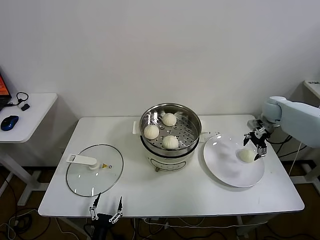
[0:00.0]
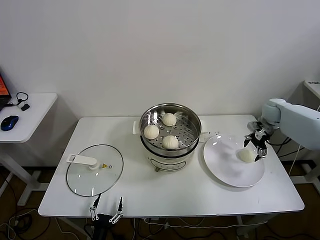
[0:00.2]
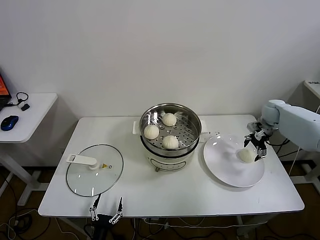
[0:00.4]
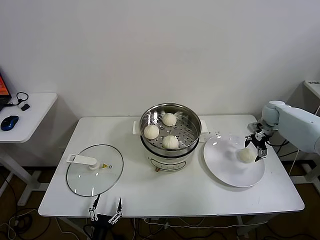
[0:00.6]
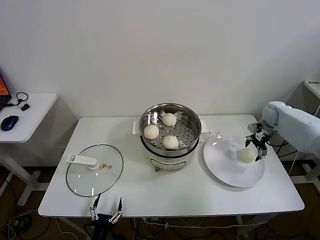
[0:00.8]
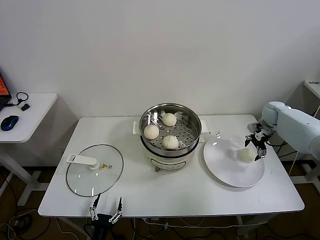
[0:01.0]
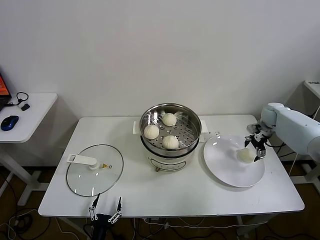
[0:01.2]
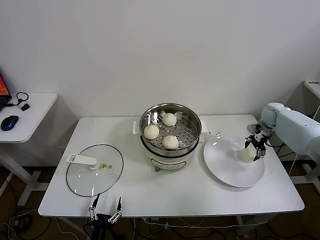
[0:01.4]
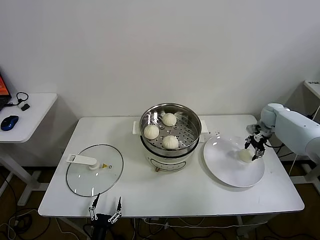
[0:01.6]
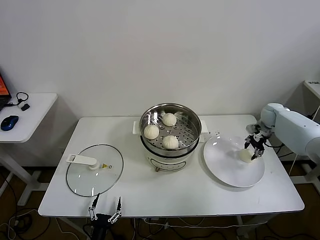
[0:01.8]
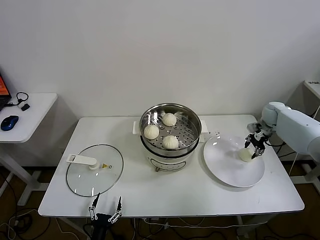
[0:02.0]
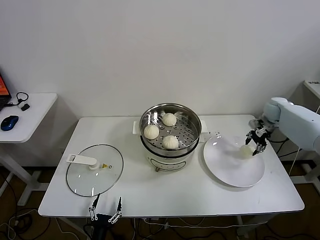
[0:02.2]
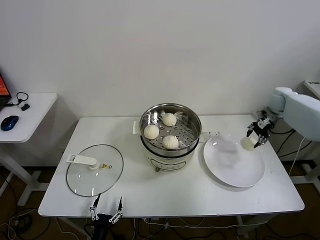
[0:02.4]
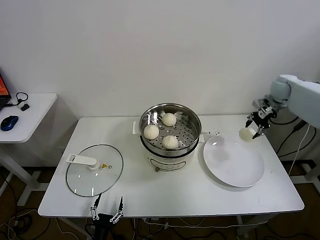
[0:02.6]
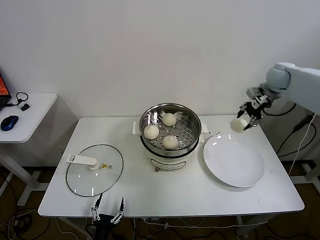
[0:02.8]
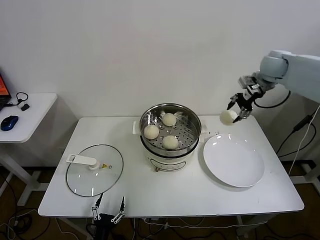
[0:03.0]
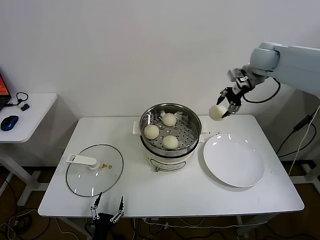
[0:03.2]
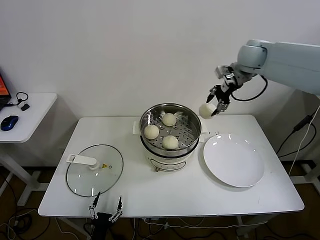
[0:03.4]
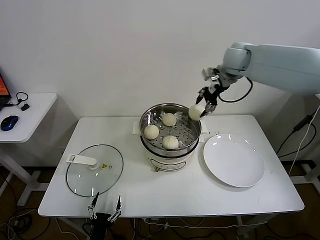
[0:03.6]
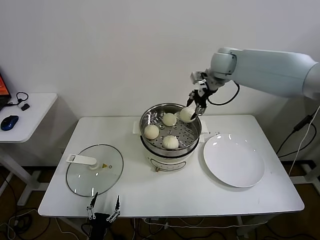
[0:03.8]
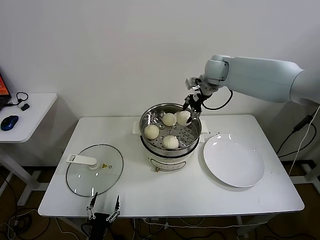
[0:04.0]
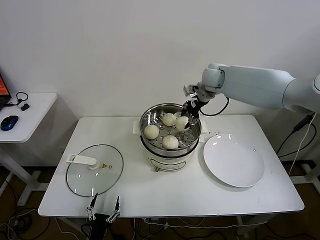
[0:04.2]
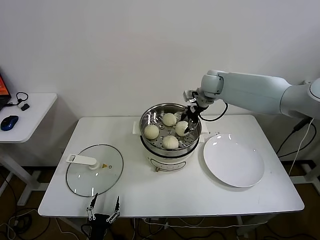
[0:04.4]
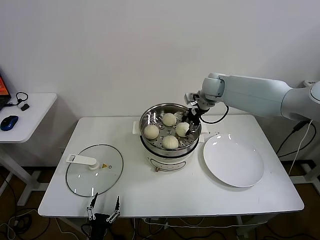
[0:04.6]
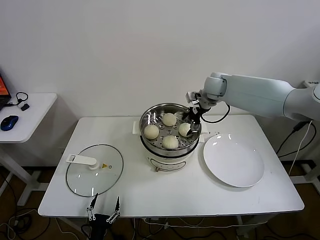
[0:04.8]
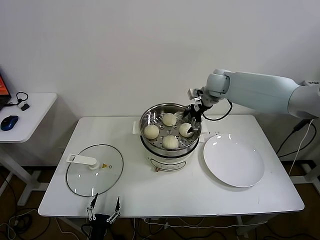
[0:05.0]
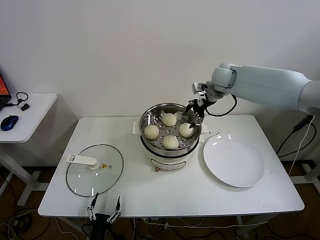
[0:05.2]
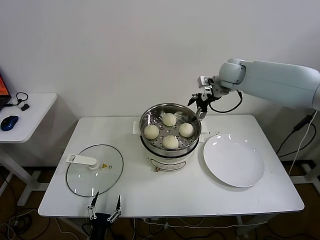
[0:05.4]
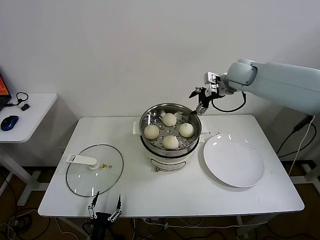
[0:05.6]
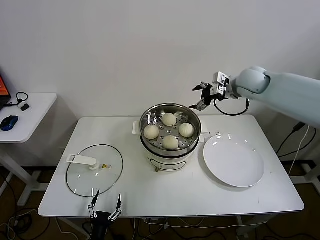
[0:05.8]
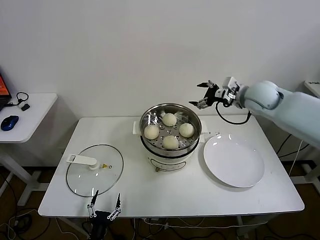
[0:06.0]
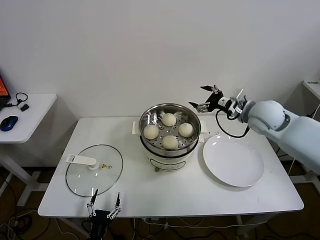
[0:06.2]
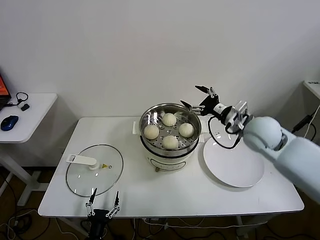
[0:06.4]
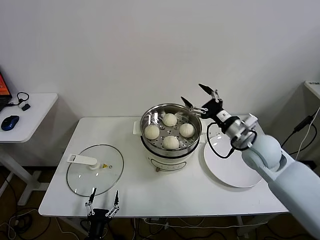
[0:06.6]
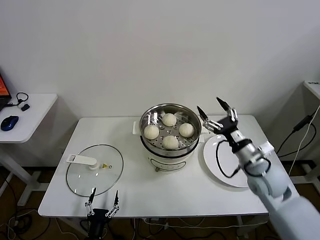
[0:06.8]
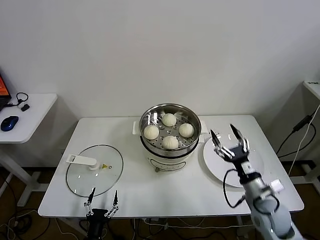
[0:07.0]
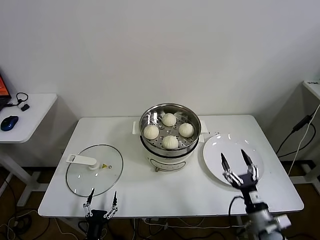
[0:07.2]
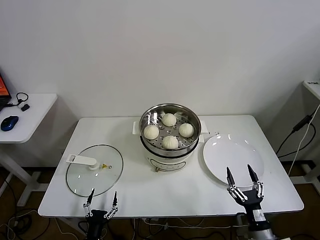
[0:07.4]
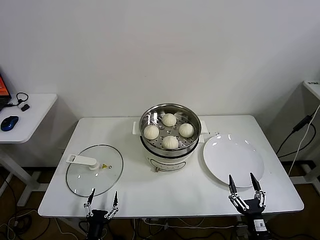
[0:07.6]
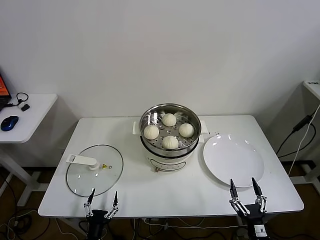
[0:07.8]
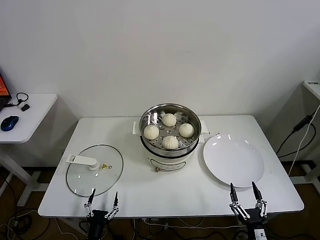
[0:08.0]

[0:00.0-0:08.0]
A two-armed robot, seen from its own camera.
Task of the whole recording: take steamed baozi put them in steamer.
Step, 0:02.0 to 0:05.0: Place the baozi on the steamer with right gripper.
0:00.0 to 0:01.6: The right gripper moves some 5 cm, and closes its fingers.
0:01.6 to 0:03.2: The right gripper heads upward and to the left, covering some 30 cm.
0:03.2 to 0:04.8: The right gripper goes about 15 cm to the left and downward, and opens up.
0:04.8 to 0:06.4: The right gripper shifts approximately 20 cm backward and to the right.
0:06.4 to 0:08.0: The right gripper heads backward and downward, covering roughly 50 cm.

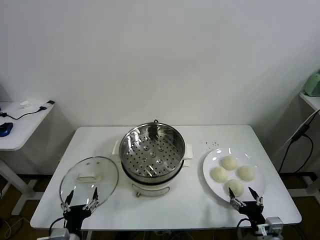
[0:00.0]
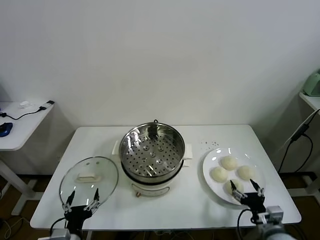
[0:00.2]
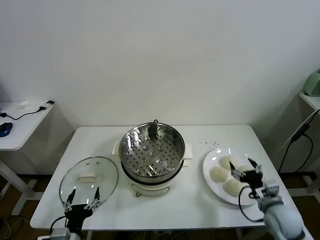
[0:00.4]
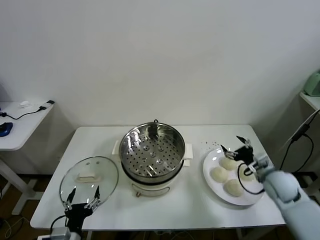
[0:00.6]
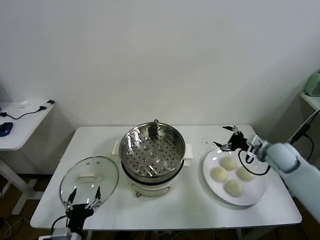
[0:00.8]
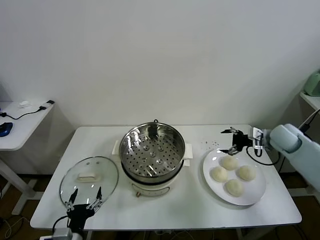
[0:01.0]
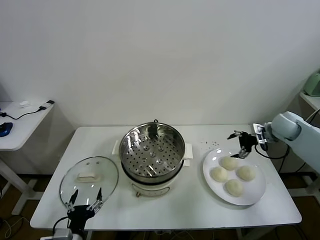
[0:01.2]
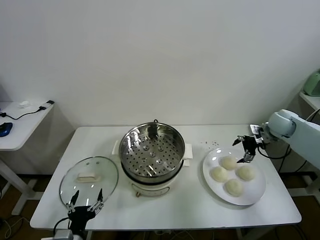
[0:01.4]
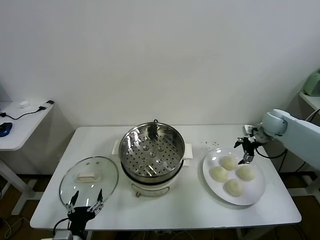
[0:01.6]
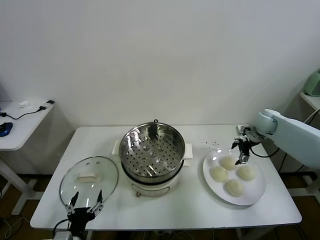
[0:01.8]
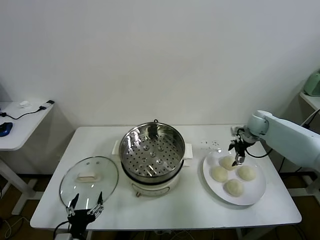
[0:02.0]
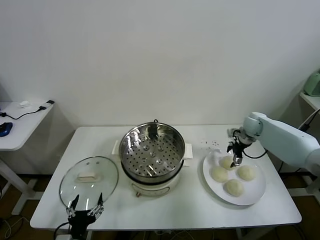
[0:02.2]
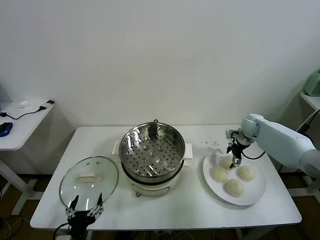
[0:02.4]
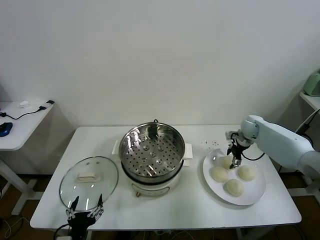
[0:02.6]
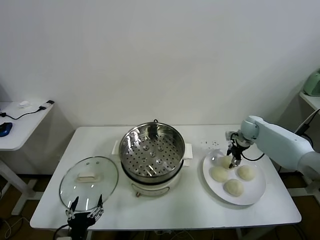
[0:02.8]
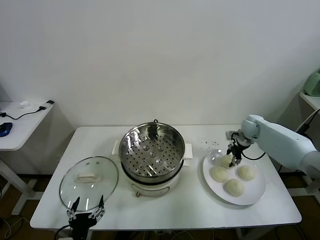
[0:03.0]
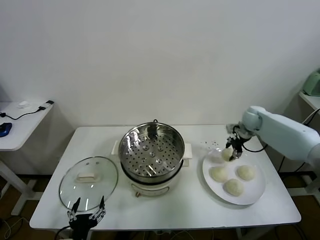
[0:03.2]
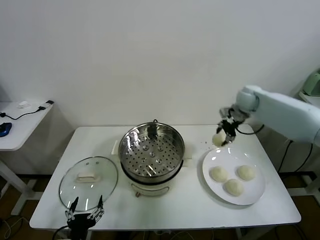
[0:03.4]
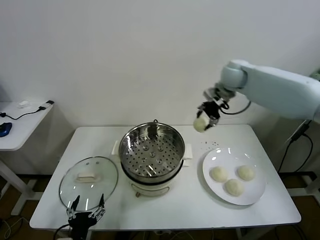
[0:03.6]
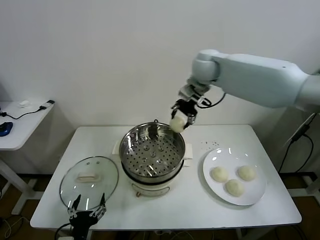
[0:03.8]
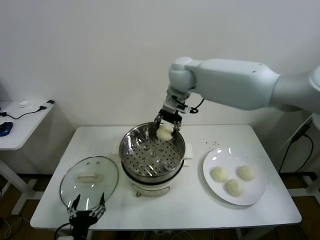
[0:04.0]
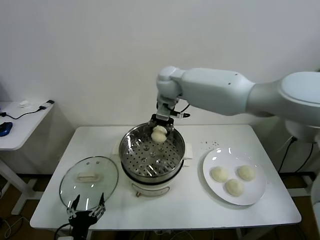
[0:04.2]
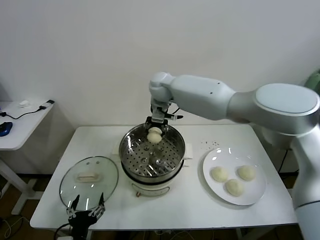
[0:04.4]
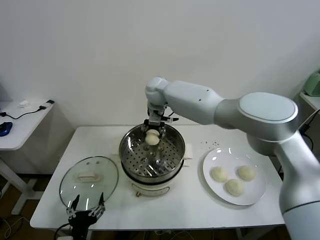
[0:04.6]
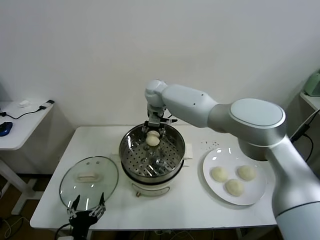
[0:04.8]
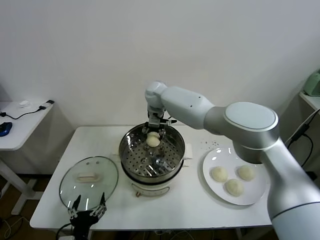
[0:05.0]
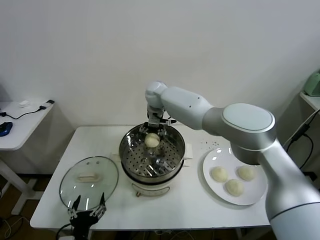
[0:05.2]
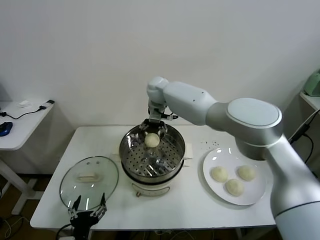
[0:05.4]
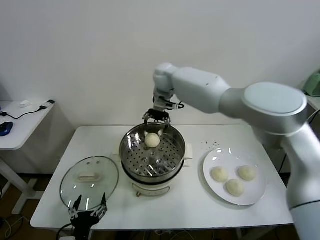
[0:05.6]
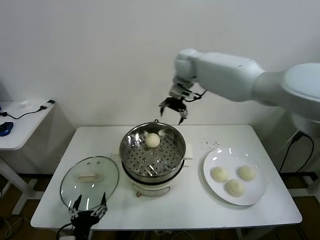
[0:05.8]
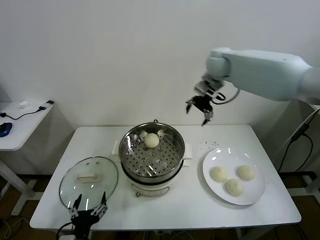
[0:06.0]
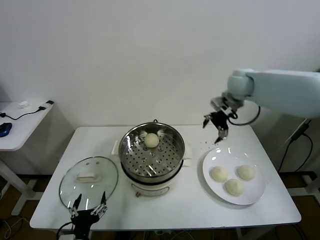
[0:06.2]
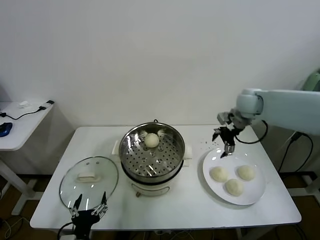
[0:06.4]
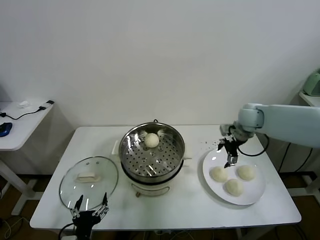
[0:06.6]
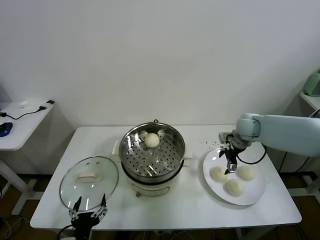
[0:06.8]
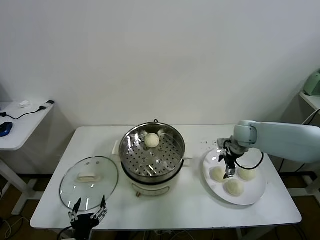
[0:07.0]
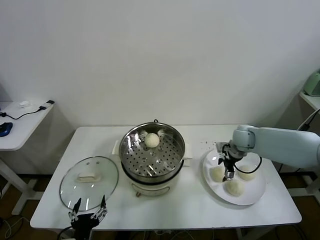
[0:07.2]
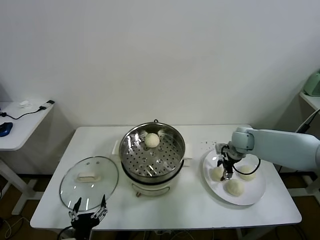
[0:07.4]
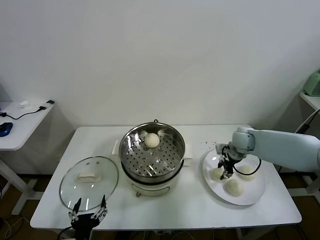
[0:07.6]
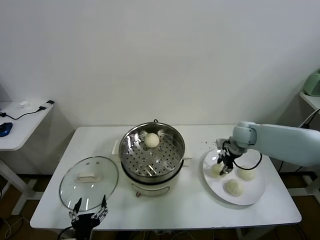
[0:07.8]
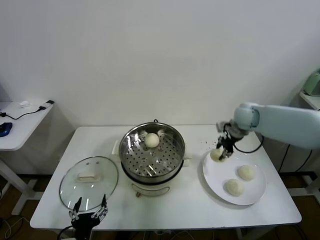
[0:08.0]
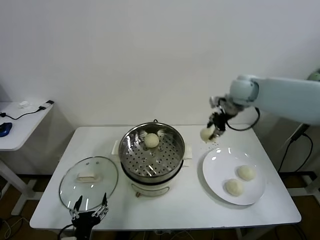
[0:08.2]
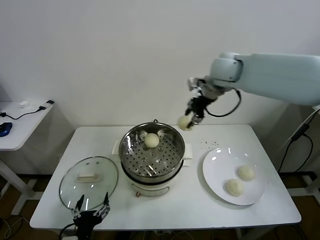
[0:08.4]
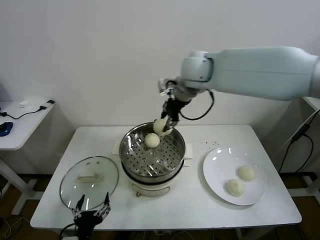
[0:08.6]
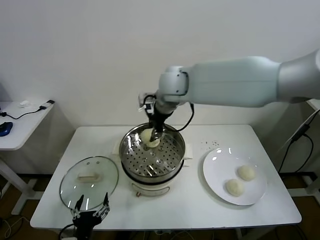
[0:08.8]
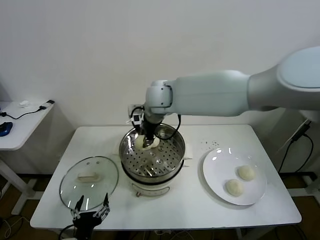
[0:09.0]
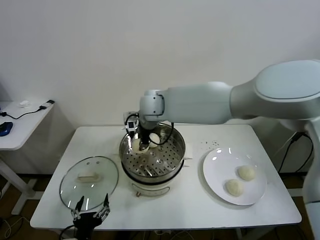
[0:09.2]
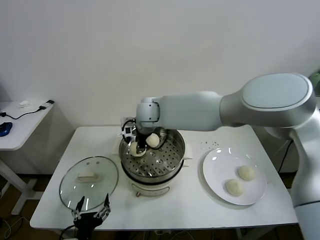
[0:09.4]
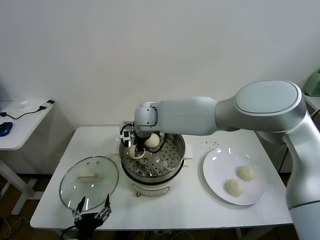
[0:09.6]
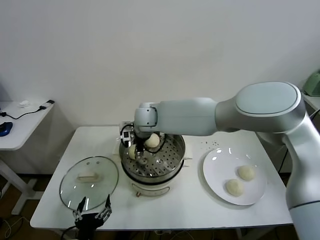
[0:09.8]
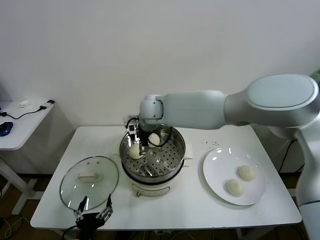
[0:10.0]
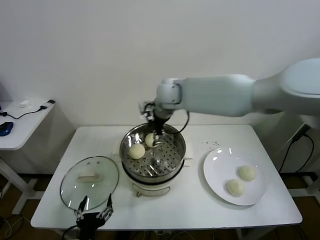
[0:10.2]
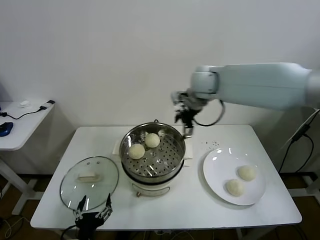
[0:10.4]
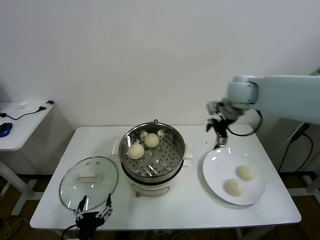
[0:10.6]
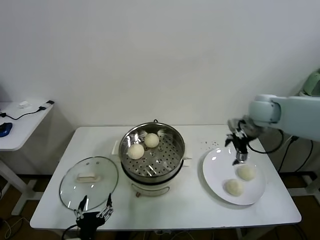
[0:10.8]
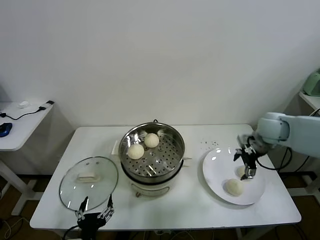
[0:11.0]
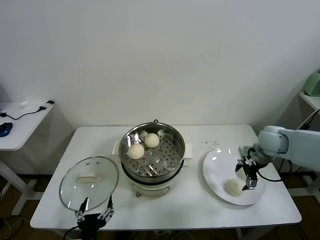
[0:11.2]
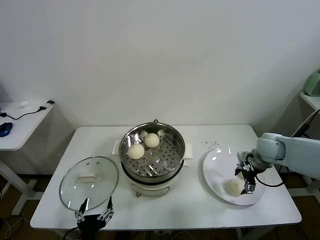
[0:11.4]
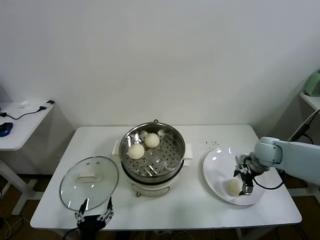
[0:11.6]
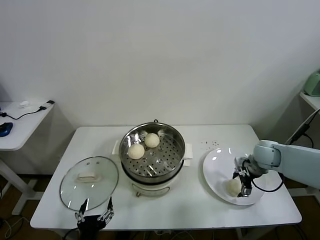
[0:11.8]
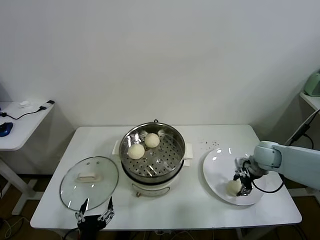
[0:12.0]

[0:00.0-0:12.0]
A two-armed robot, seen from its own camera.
Task of the whole recording: take steamed baozi put them in steamer.
Step, 0:00.0 to 0:02.8: Grasp the baozi in the plate with right gripper.
Step, 0:03.0 to 0:05.2: Place the baozi on the steamer with right gripper.
Step, 0:05.4 to 0:07.6: Grasp the baozi in the plate with right gripper.
Step, 0:07.8 to 0:10.0: Place the baozi on the steamer with right gripper.
Step, 0:10.2 to 0:11.8: Grasp the baozi in the plate with right gripper.
0:01.6 to 0:03.0: The right gripper shifts by approximately 5 cm, and closes its fingers.
0:03.0 to 0:04.4: The right gripper moves to the left and upward, approximately 40 cm.
0:04.4 to 0:06.0: The right gripper shifts approximately 25 cm to the right, and opens up.
0:06.0 to 0:07.6: The right gripper moves downward, roughly 25 cm, and closes its fingers.
0:07.6 to 0:09.0: The right gripper goes some 40 cm to the left and upward.
0:09.0 to 0:10.4: The right gripper moves to the right, approximately 20 cm, and opens its fingers.
0:10.4 to 0:12.0: The right gripper travels downward and to the right by roughly 30 cm, and closes.

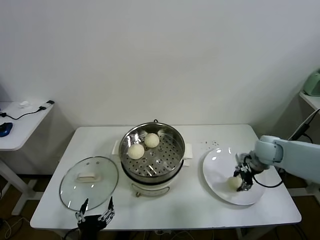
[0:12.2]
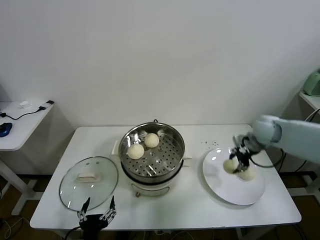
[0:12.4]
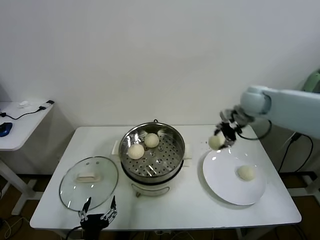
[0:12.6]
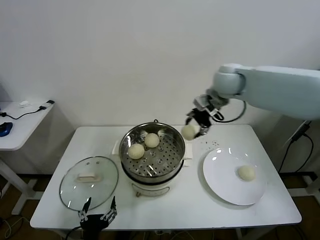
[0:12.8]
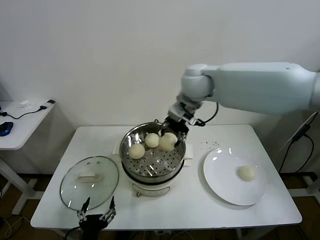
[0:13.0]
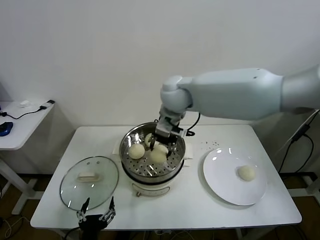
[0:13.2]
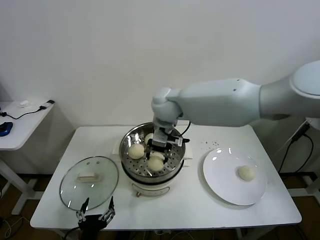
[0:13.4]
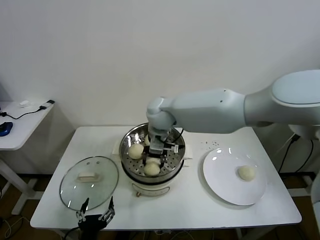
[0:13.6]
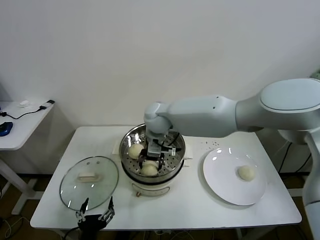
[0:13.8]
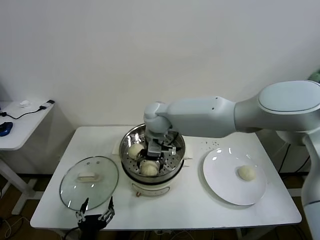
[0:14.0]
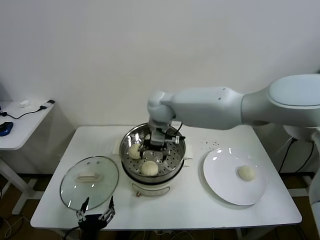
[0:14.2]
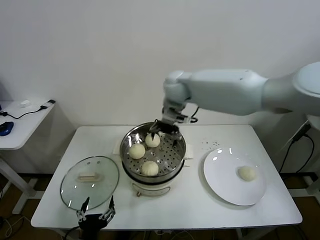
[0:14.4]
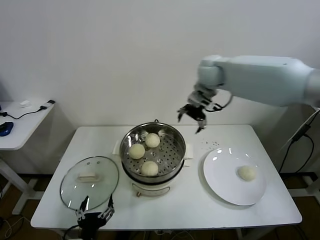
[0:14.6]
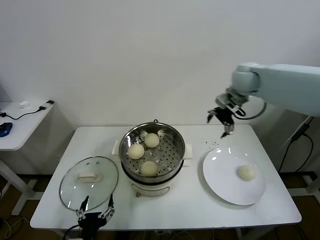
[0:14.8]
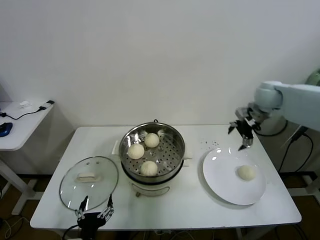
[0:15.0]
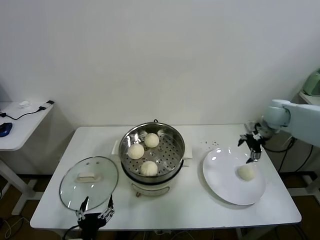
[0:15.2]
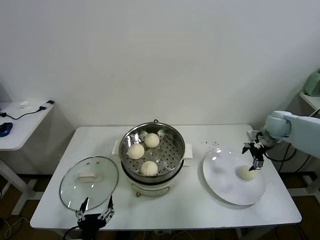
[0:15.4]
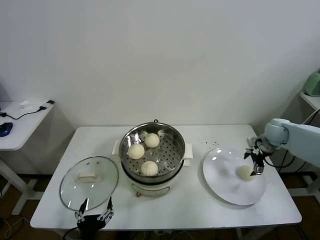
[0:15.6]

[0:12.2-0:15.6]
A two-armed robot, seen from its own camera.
Task of the whole recording: take steamed baozi put them in steamer.
Step, 0:12.2 to 0:14.2: Place the baozi on the steamer with right gripper.
0:12.2 to 0:13.8: The right gripper goes about 40 cm to the left.
0:13.8 to 0:15.6: The right gripper heads to the right, covering approximately 40 cm, and opens its fingers.
